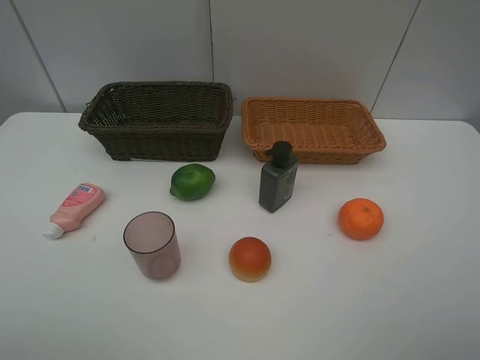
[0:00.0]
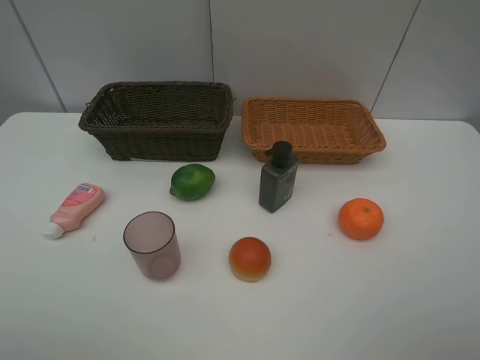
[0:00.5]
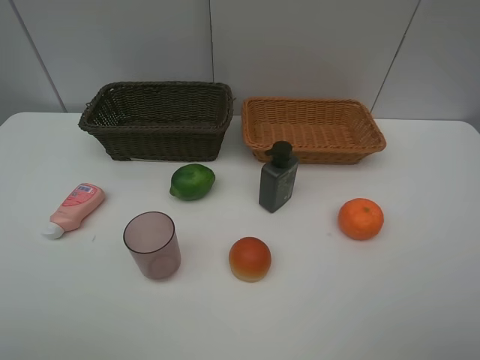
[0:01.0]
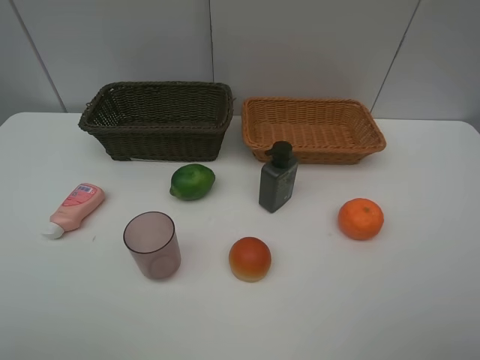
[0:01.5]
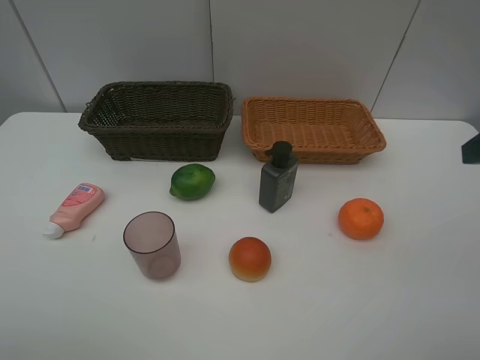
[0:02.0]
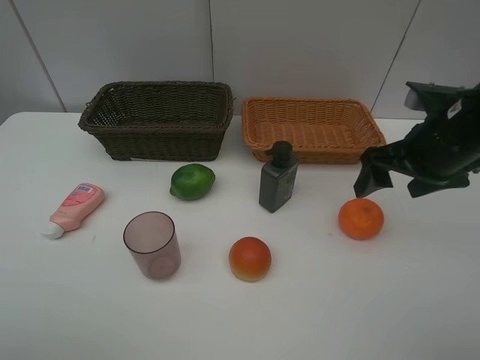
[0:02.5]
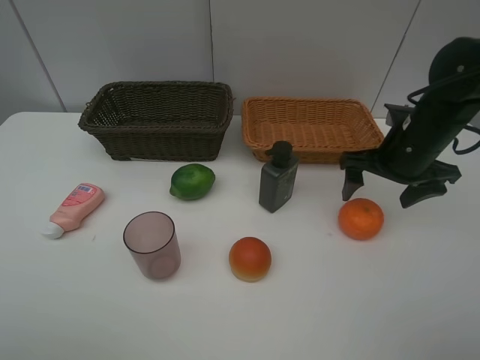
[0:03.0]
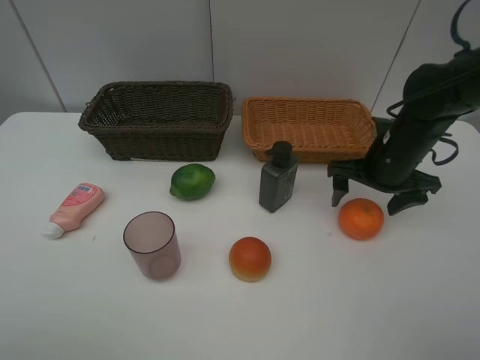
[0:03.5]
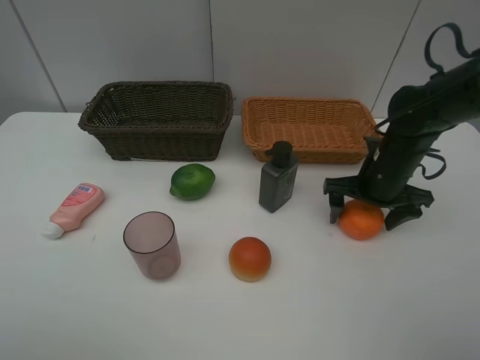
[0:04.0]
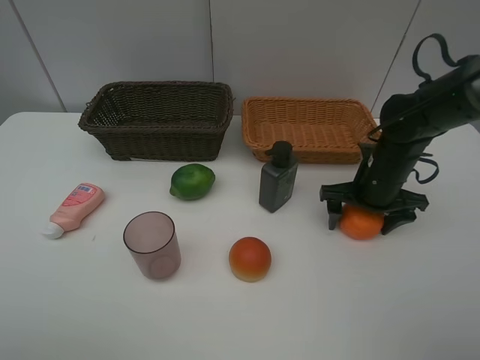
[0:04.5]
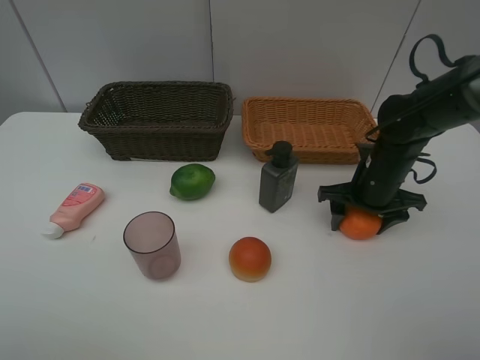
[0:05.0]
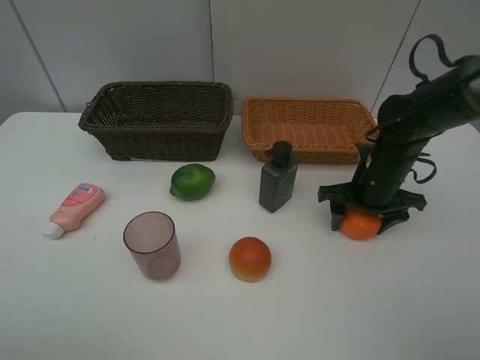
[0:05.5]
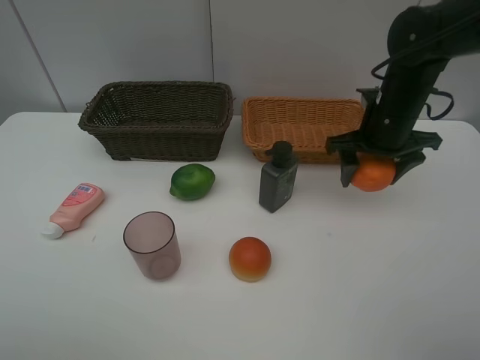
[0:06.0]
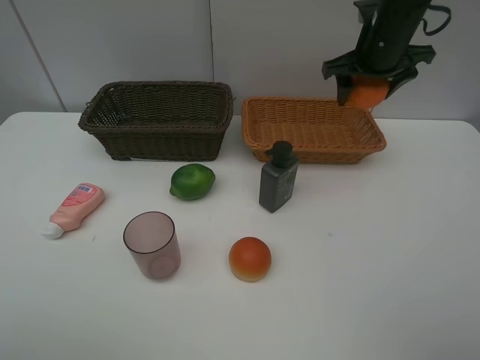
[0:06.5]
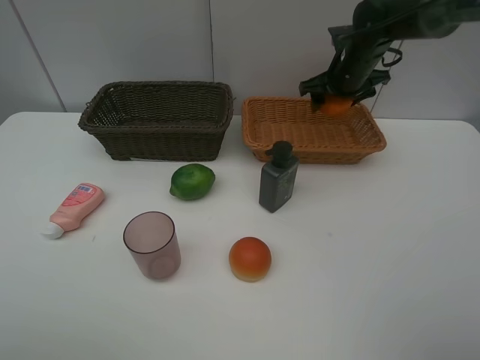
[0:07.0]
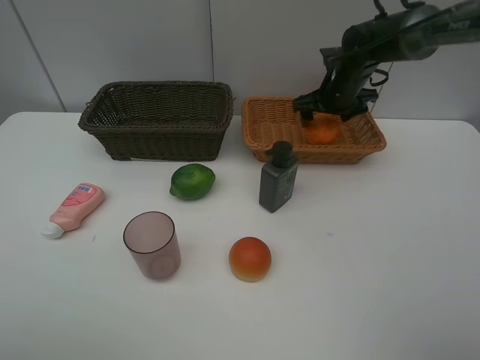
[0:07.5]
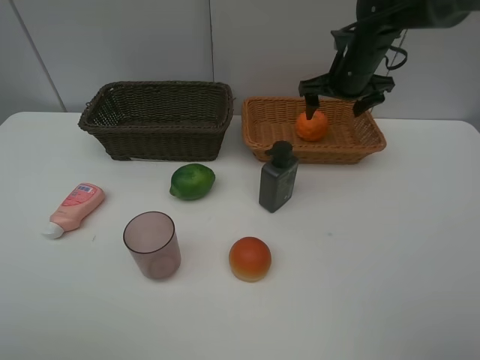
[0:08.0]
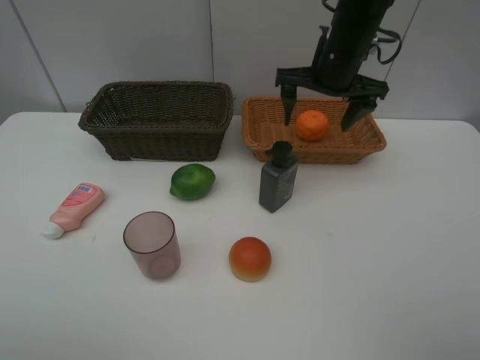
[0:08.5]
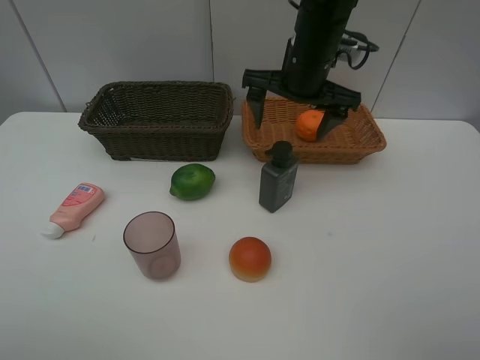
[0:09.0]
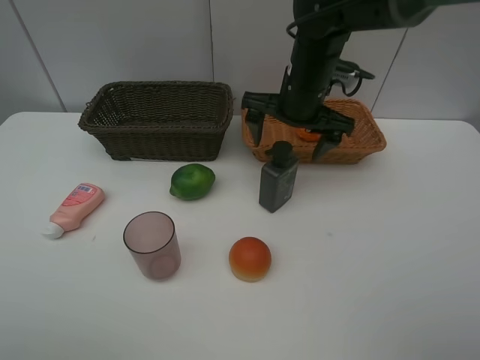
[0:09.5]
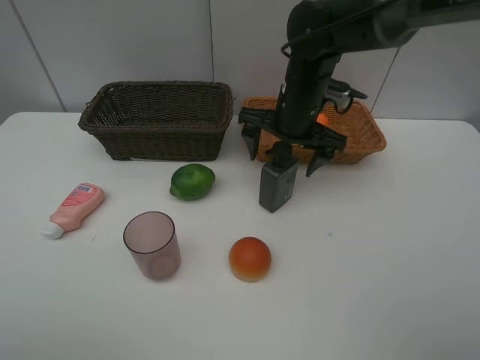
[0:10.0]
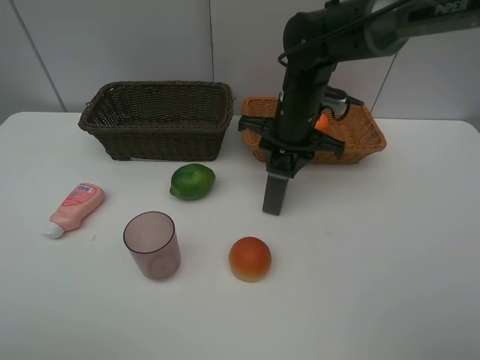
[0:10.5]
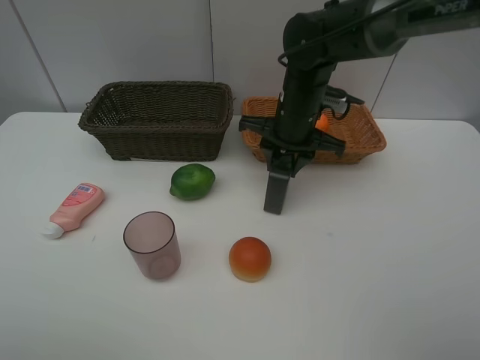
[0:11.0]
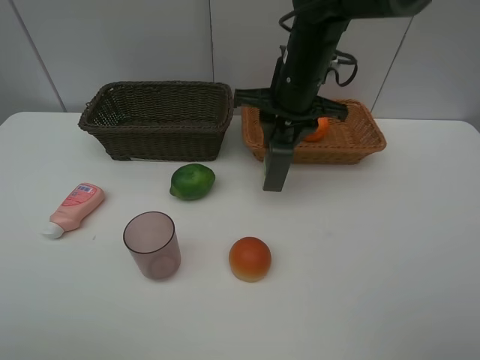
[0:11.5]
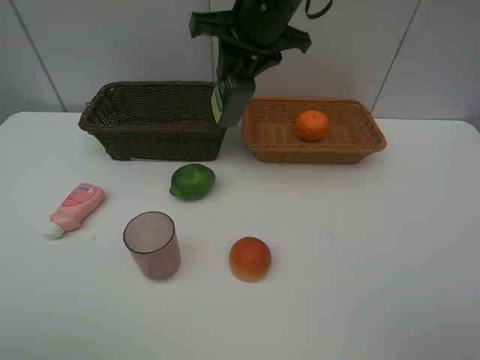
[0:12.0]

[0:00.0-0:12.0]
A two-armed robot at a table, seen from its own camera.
Task of the whole recording: place multiple objects separately in different baskets.
0:02.0 to 0:04.0: The right gripper heads downward and forward, covering about 25 cm.
0:04.0 to 0:06.0: The right gripper shifts roughly 10 cm upward, and closes up.
0:06.0 to 0:08.0: The right gripper heads forward, covering roughly 10 cm, and opens its fingers.
0:08.0 to 0:10.0: The right gripper shifts approximately 15 cm to the left and backward.
0:10.0 to 0:12.0: The right gripper goes about 15 cm upward and to the left, and closes up.

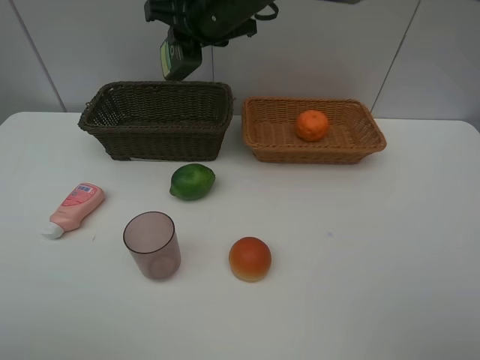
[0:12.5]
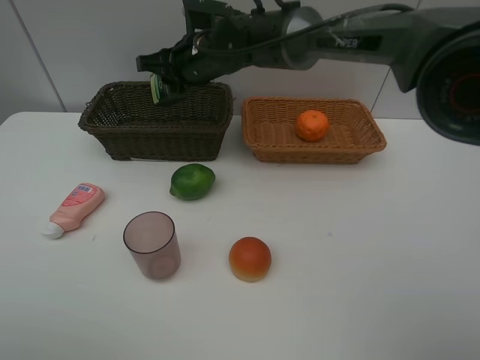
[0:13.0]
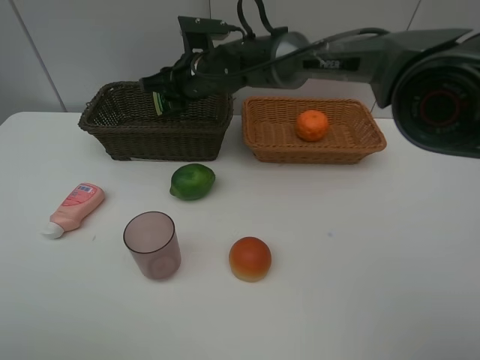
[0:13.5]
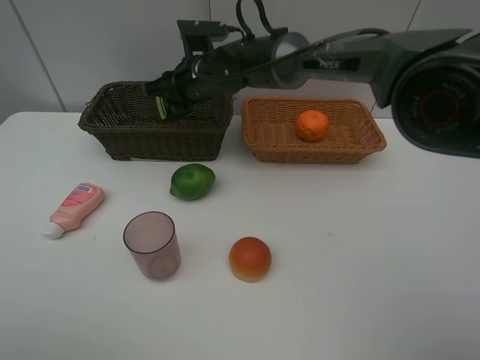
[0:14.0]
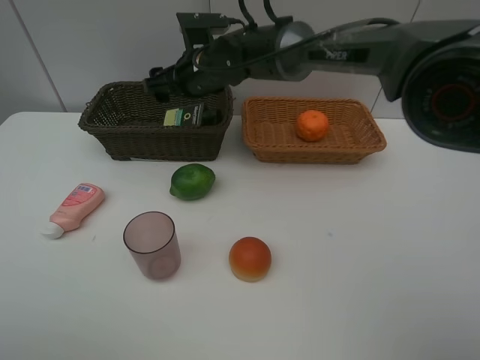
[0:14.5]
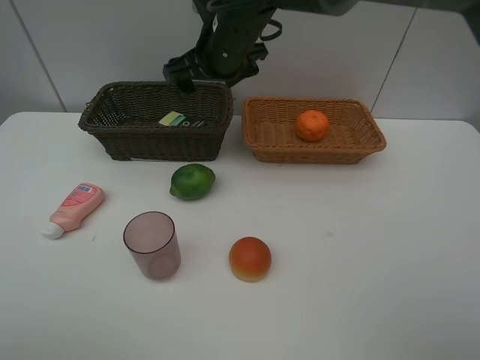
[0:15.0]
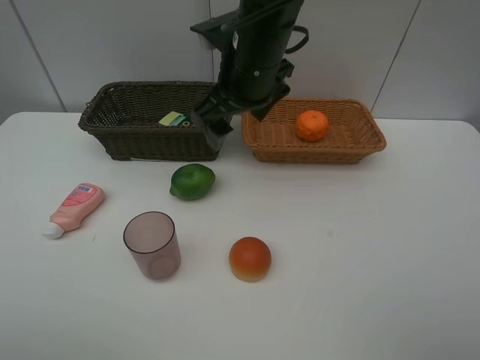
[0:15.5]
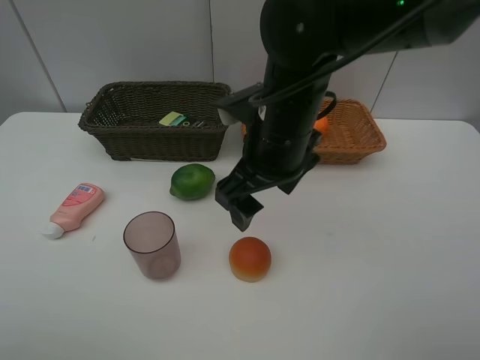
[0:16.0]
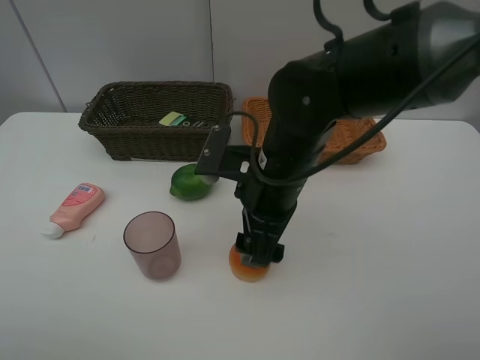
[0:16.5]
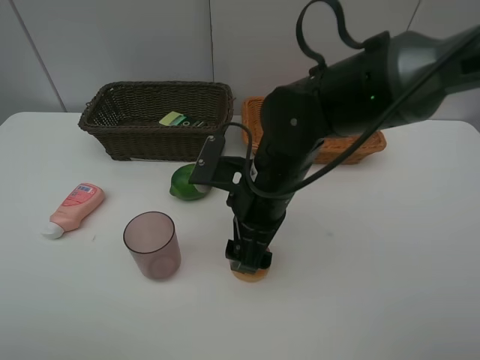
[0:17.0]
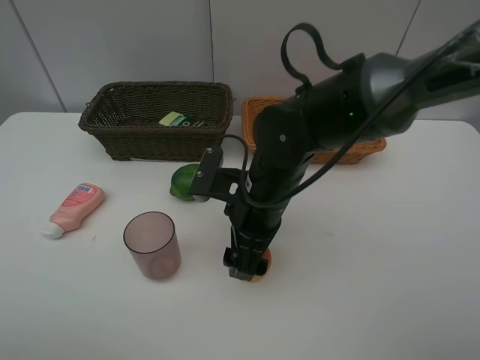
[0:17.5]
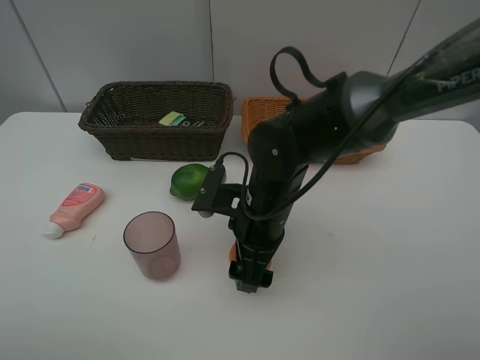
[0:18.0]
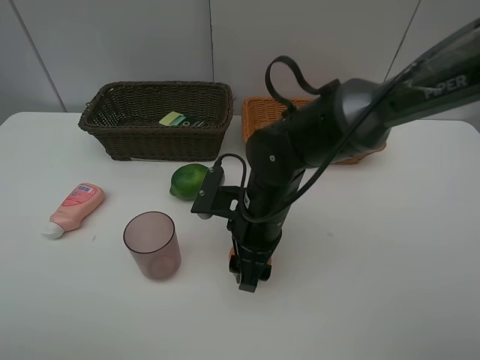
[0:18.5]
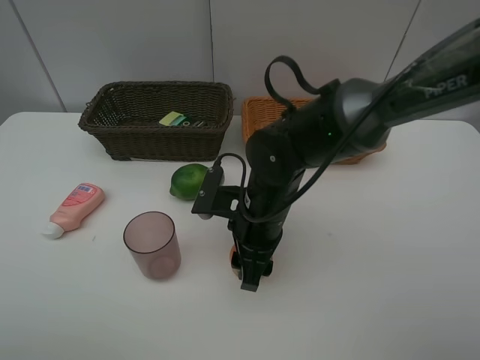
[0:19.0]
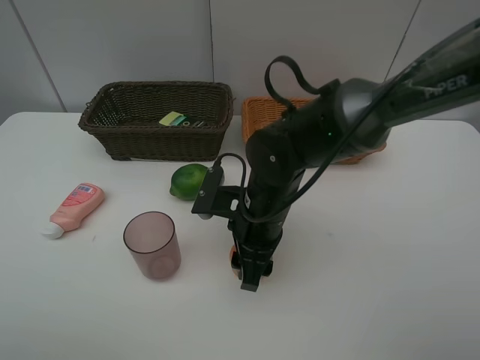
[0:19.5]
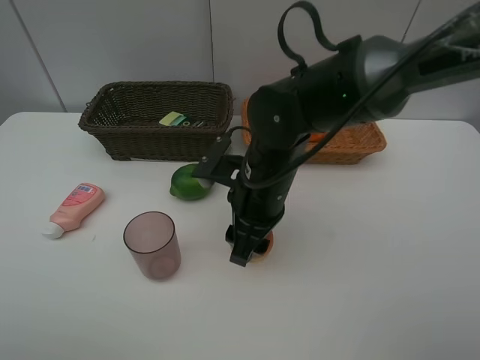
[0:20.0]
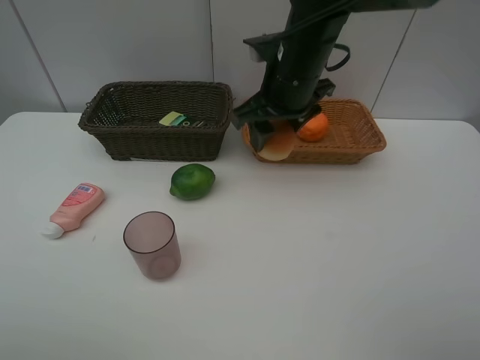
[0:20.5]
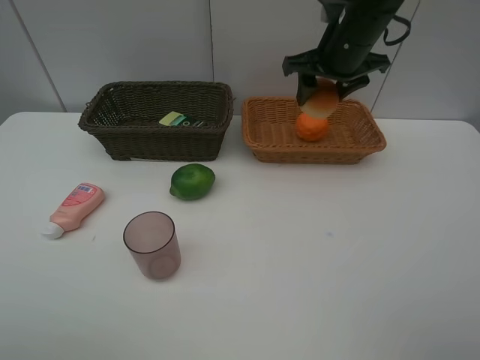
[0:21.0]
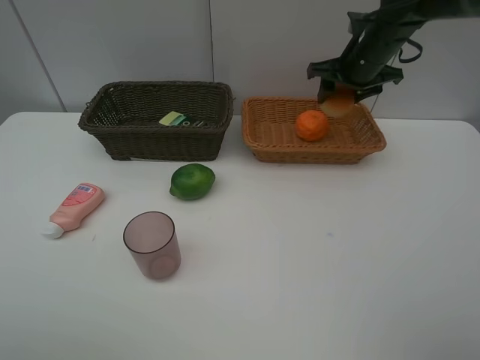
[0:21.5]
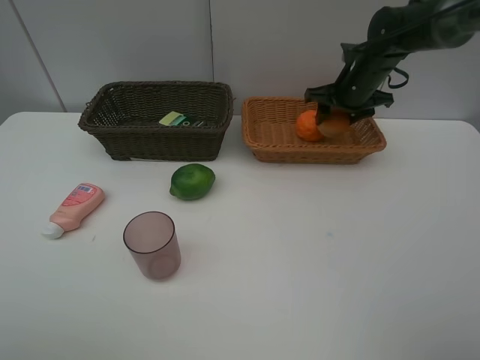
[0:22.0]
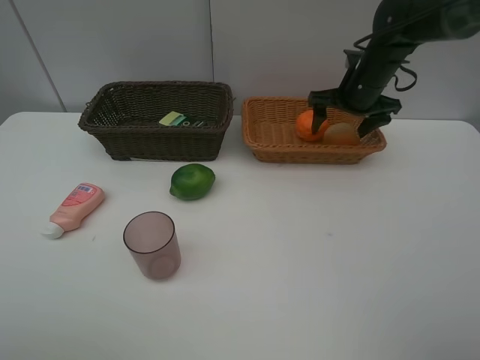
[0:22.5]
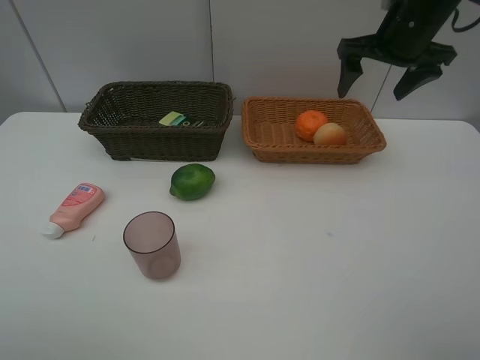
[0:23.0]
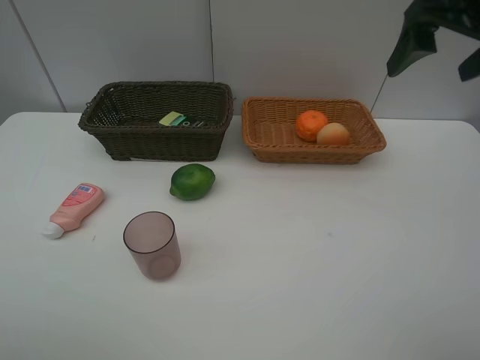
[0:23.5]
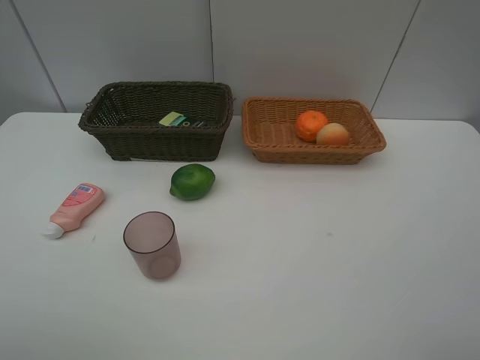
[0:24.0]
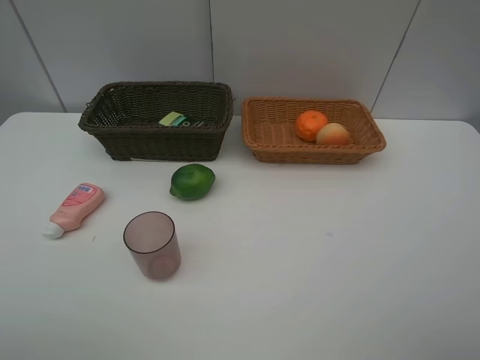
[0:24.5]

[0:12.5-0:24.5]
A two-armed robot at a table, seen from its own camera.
Task of the whole recording: place multiple objects separately in different baskets.
0:12.5 to 0:14.5: The right gripper is displaced downward by some 10 cm, and opens up.
0:14.5 to 0:16.5: The right gripper is displaced backward and to the right by about 20 cm.
0:16.5 to 0:18.5: The right gripper is displaced downward by some 5 cm, and closes up.
0:18.5 to 0:20.5: The right gripper is displaced upward and forward by approximately 20 cm.
0:20.5 to 0:22.5: The right gripper is displaced to the right, forward and downward by some 15 cm, and opens.
0:22.5 to 0:24.5: The right gripper is displaced backward by approximately 40 cm.

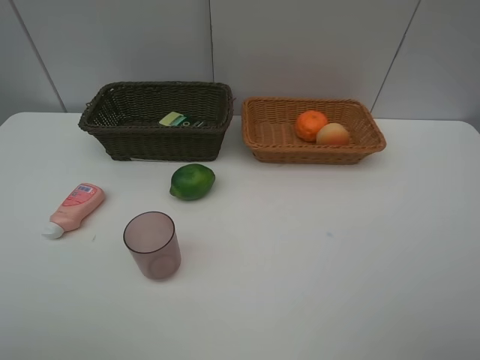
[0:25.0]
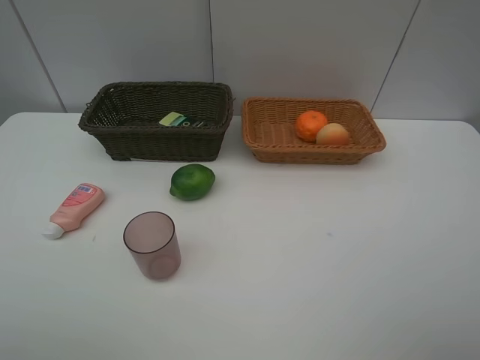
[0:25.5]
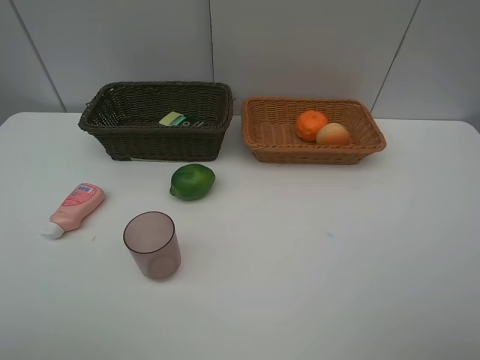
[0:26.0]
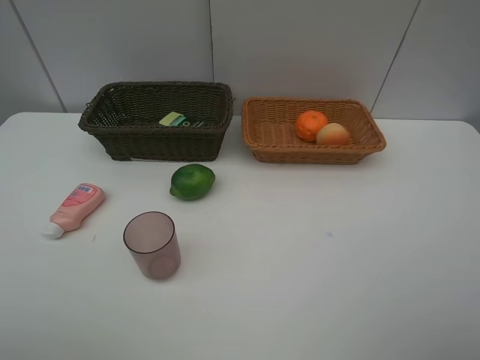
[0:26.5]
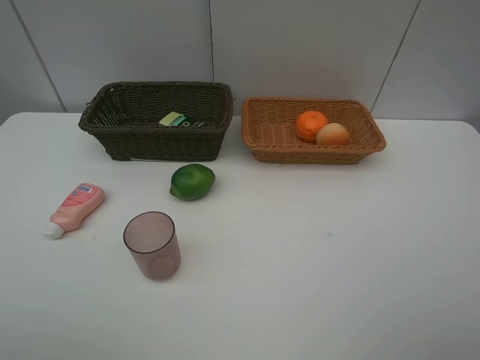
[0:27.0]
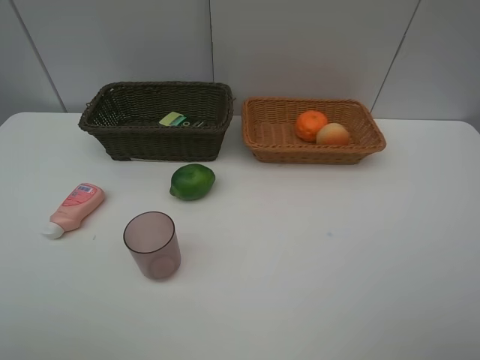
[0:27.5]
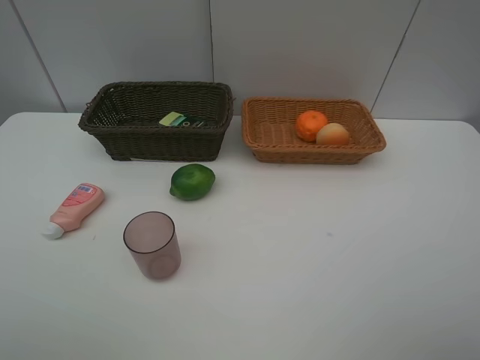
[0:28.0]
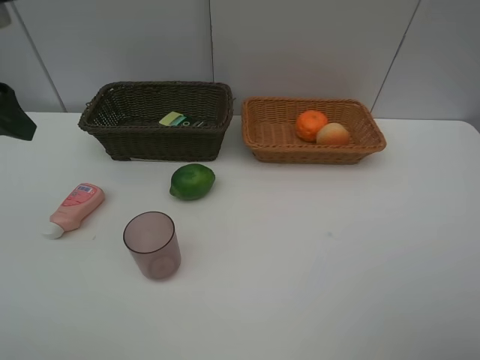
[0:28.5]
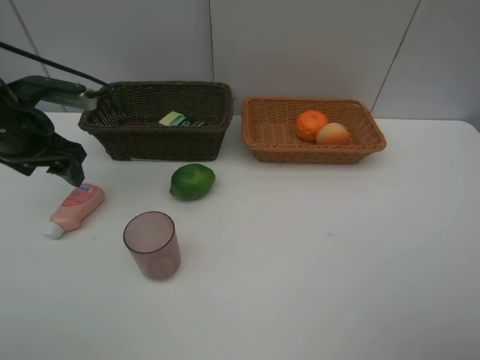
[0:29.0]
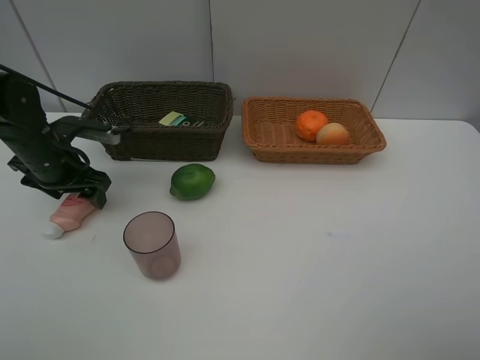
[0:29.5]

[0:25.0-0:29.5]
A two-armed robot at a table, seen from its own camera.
Task of the whole recording: place multiple objects separately in different baskets.
0:27.0 to 0:29.5: The left gripper is displaced forward and downward by about 40 cm.
